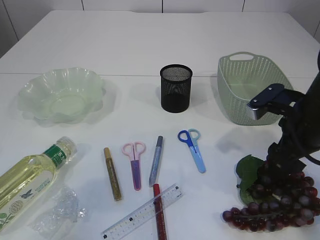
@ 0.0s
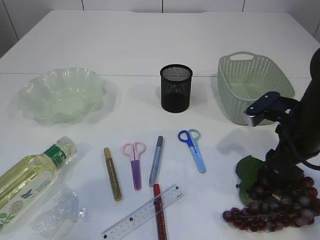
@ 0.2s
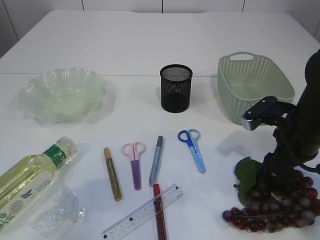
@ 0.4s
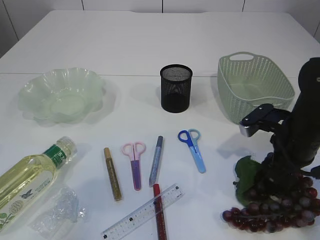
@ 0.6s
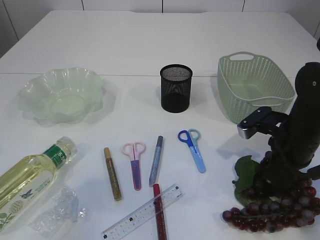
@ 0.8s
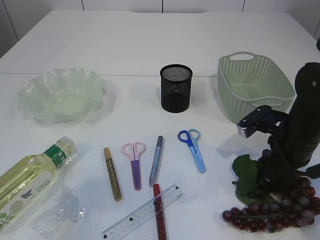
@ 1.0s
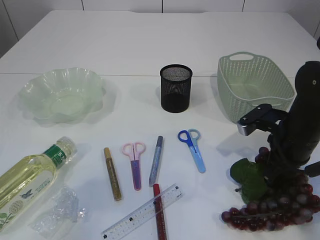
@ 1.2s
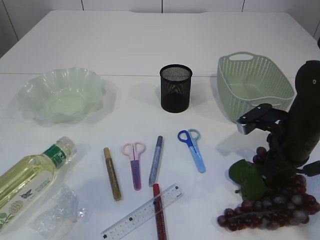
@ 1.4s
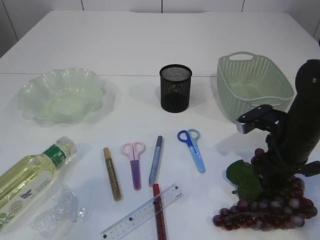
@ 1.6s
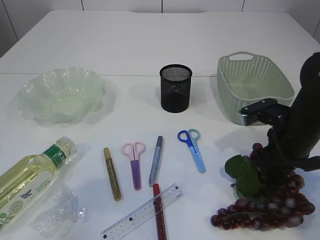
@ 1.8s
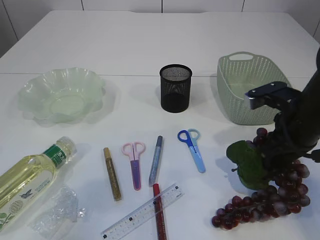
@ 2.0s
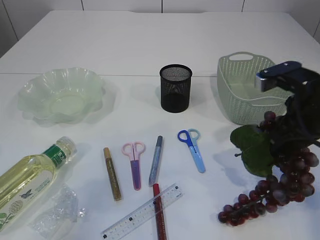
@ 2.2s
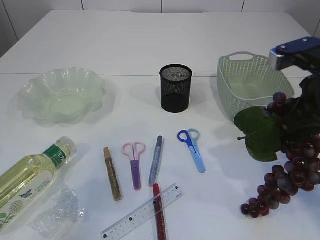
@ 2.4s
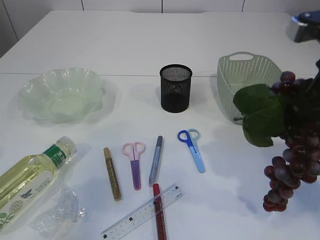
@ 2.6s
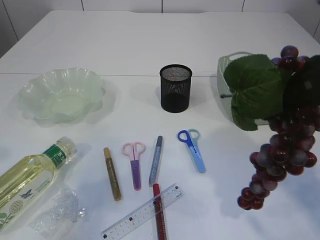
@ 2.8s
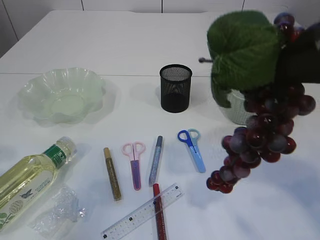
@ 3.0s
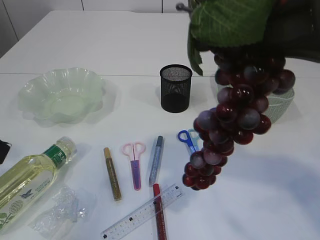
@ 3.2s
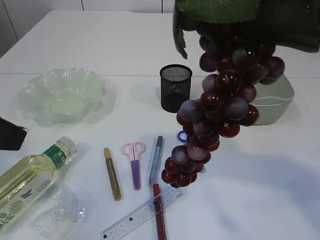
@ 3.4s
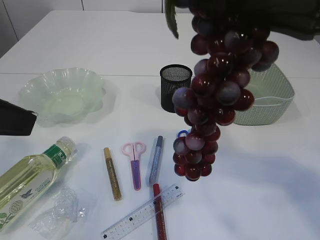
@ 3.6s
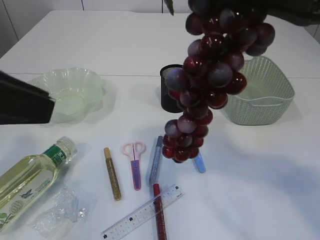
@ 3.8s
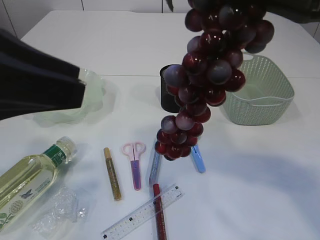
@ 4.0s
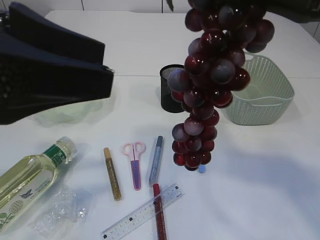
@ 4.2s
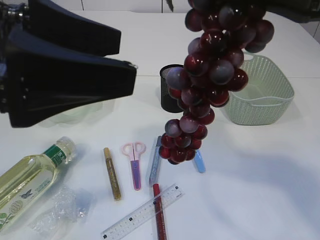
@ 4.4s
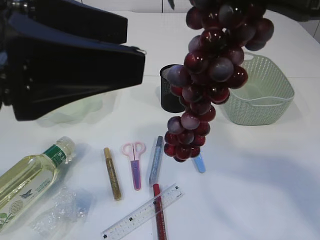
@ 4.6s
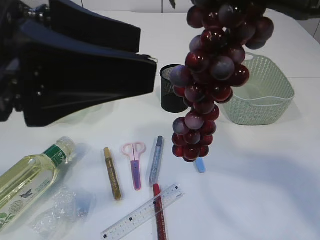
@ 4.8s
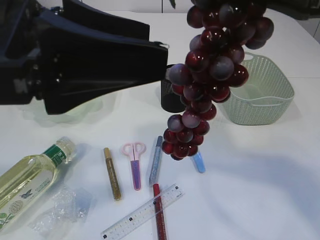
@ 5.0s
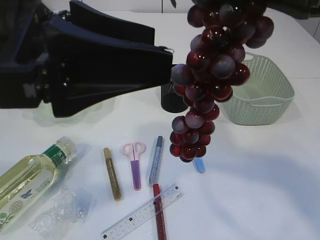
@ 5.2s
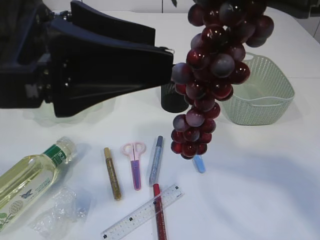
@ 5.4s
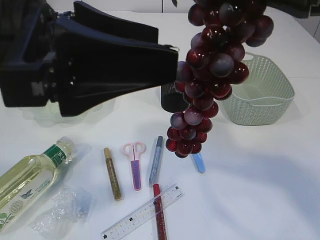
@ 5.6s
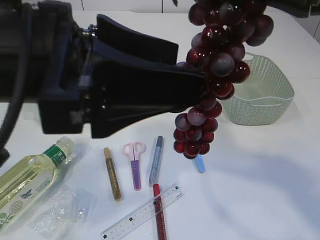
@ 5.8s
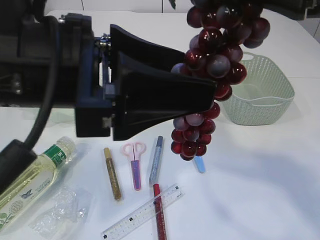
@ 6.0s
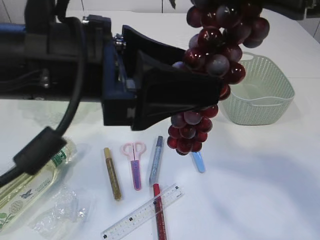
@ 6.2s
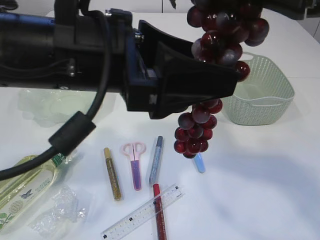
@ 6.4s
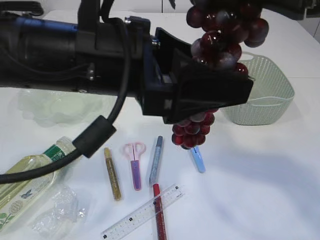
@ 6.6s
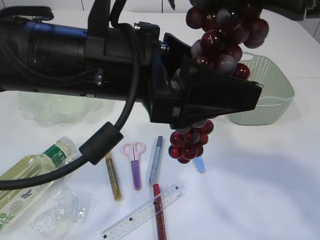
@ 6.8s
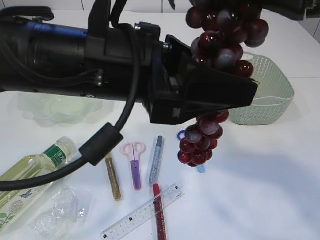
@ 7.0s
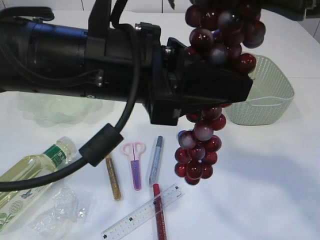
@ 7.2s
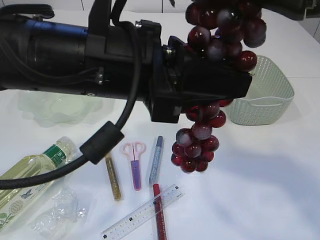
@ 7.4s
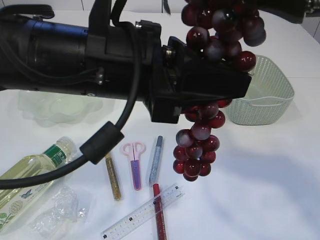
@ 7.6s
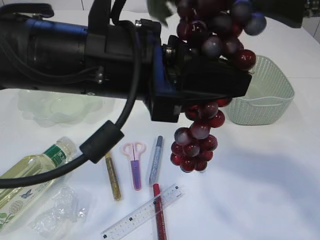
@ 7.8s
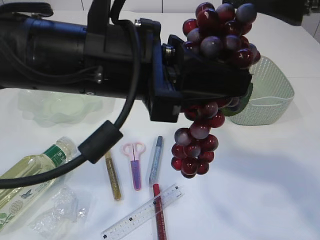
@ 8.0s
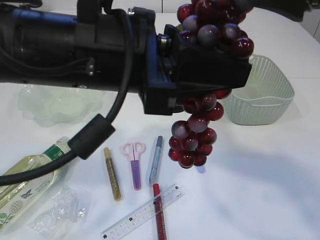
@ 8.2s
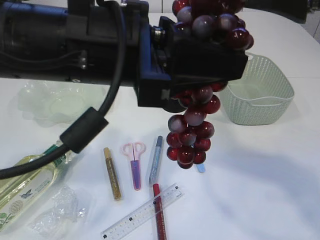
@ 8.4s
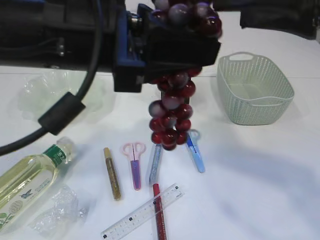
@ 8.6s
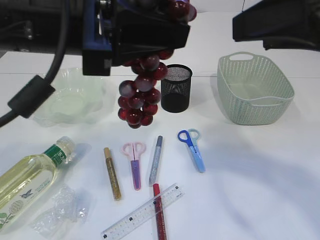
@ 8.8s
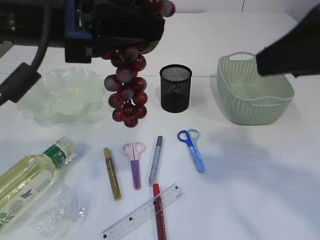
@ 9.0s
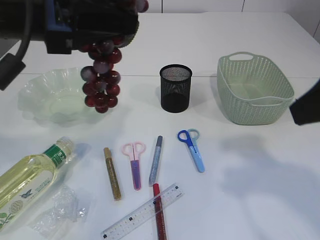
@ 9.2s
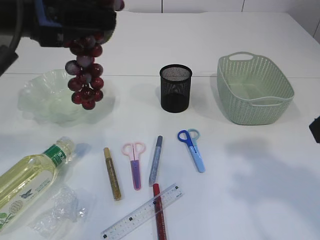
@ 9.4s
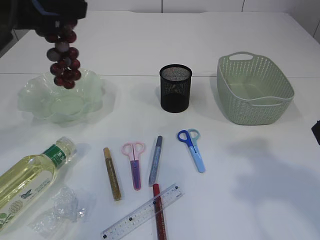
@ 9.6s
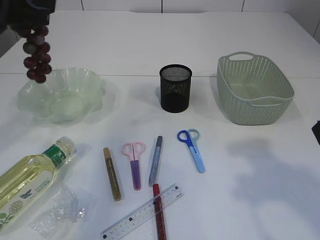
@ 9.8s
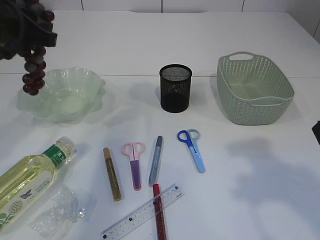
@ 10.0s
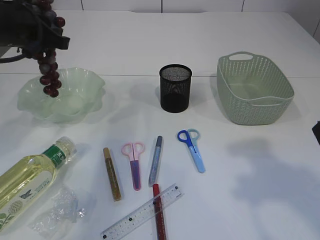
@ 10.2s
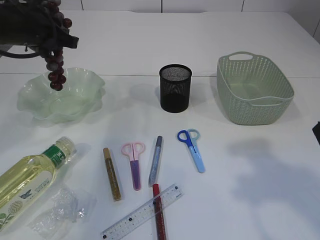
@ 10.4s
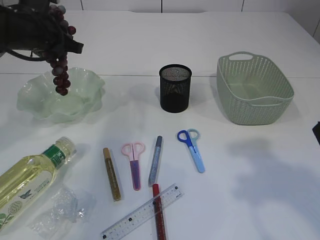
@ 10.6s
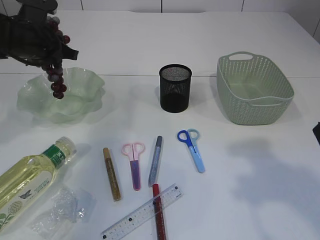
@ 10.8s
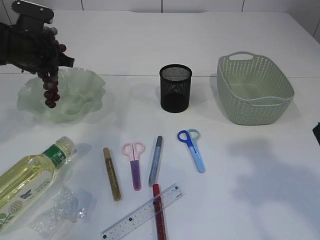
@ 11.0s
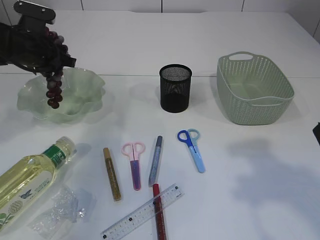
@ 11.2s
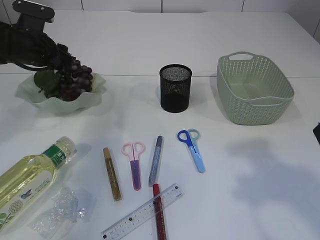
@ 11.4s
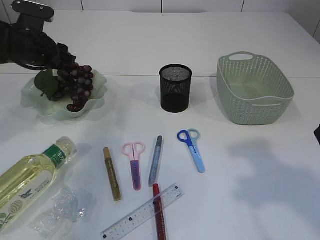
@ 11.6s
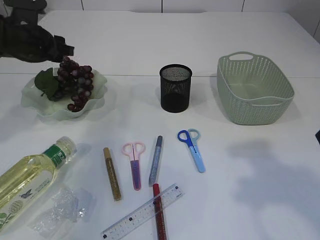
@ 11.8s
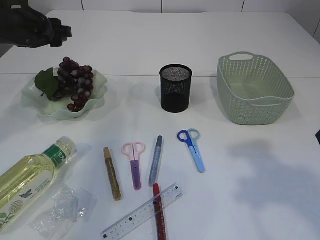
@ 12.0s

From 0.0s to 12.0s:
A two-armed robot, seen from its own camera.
Step, from 0.0s to 2.8s: Pick up the grapes.
Step, from 3.0s to 8.8s: Hand over the grapes.
Step, from 9.0s to 12.0s: Place the grapes in the plate.
From 0.0s to 1.6s: The right gripper closes up.
From 1.6s to 3.0s: The right gripper moves upward and backward, roughly 25 cm.
From 3.0s to 4.4s: The left gripper is displaced to the right and upward by about 15 cm, and opens. Meanwhile the right gripper moves some 5 cm.
From 4.4s to 6.0s: The left gripper goes approximately 5 cm to the right.
From 6.0s to 7.6s: The right gripper opens. Meanwhile the left gripper changes place by about 5 cm, and closes.
From 7.6s to 9.0s: The right gripper opens up. Meanwhile the left gripper travels to the left by about 5 cm.
From 9.0s to 10.4s: The left gripper shifts some 20 cm forward, to the left and downward.
From 10.4s to 12.0s: The left gripper opens up.

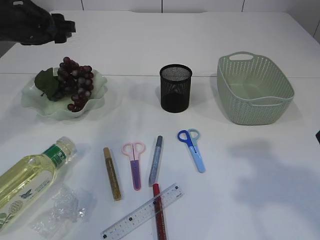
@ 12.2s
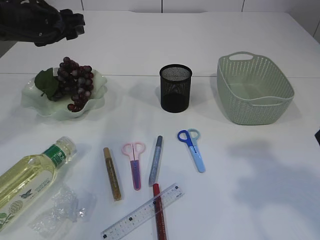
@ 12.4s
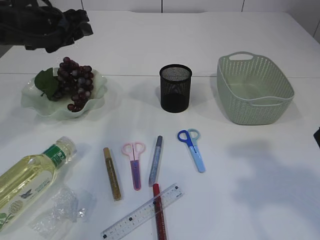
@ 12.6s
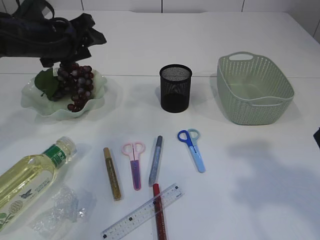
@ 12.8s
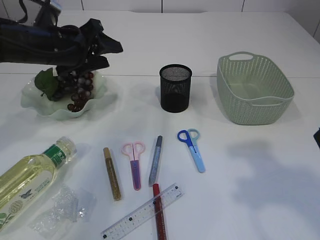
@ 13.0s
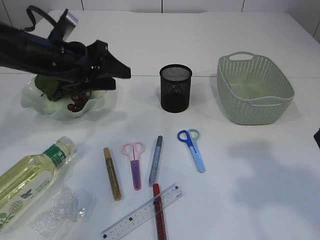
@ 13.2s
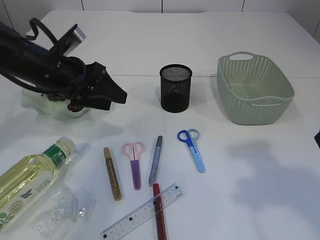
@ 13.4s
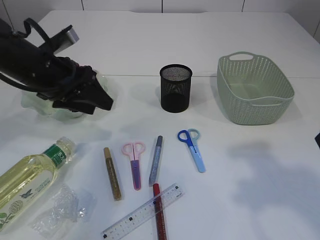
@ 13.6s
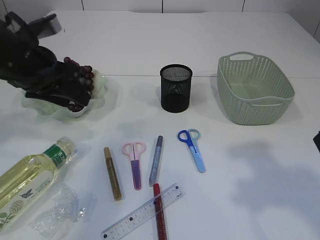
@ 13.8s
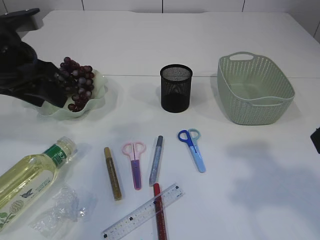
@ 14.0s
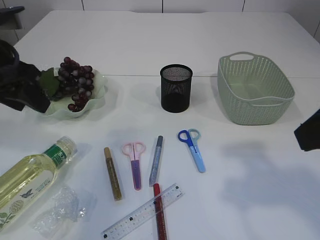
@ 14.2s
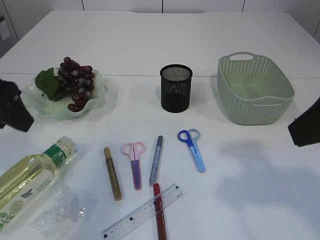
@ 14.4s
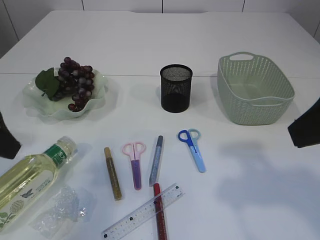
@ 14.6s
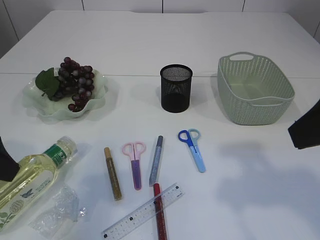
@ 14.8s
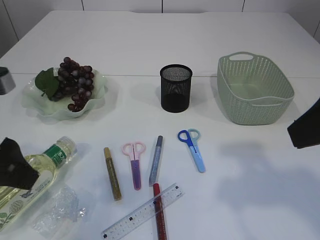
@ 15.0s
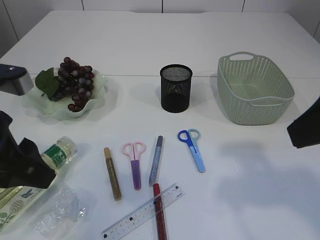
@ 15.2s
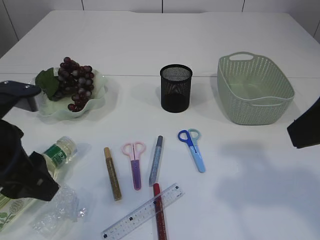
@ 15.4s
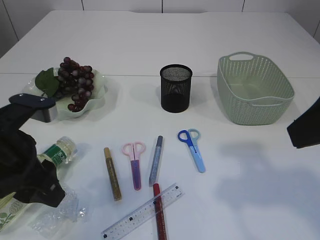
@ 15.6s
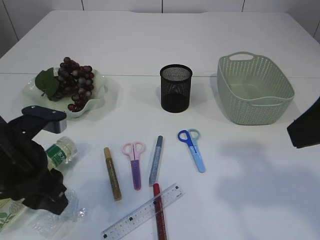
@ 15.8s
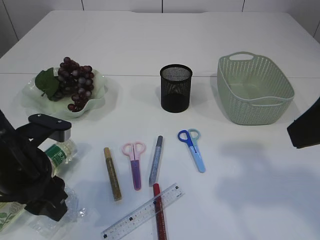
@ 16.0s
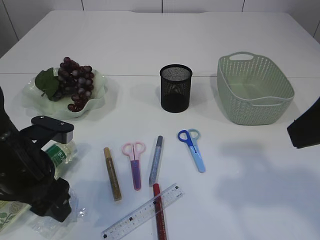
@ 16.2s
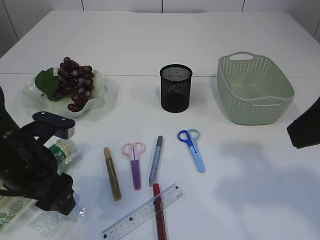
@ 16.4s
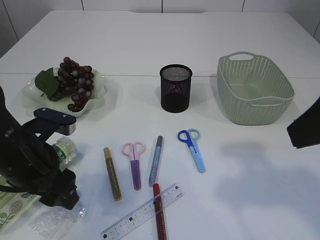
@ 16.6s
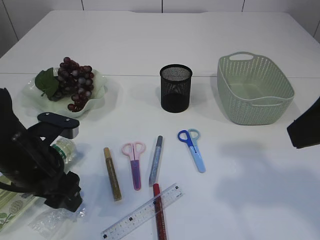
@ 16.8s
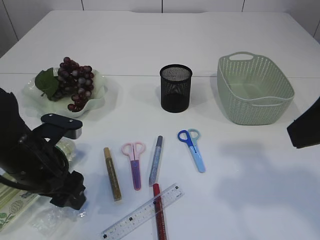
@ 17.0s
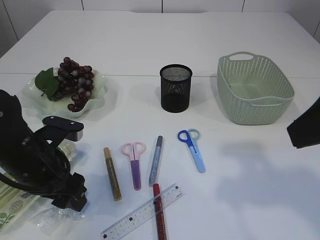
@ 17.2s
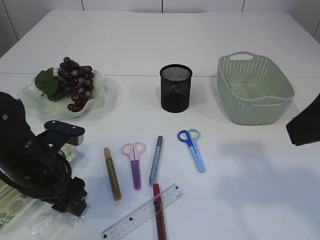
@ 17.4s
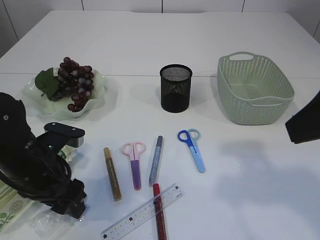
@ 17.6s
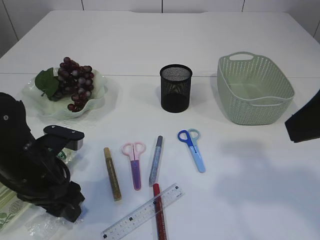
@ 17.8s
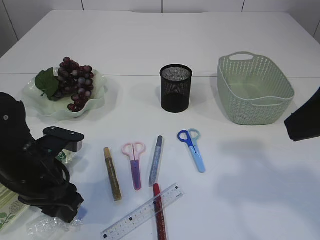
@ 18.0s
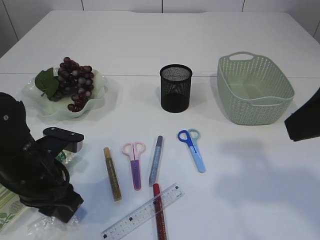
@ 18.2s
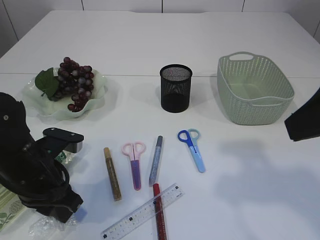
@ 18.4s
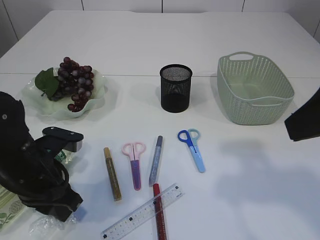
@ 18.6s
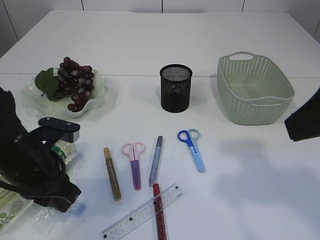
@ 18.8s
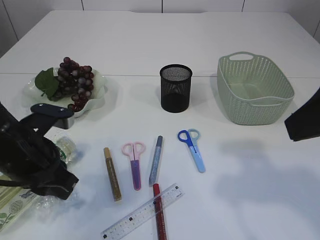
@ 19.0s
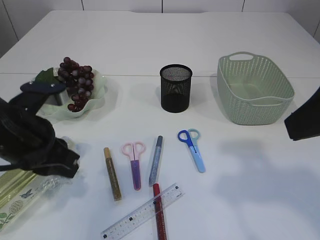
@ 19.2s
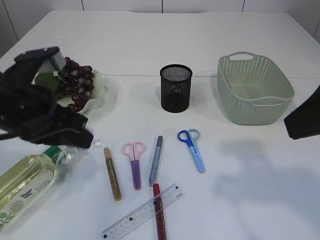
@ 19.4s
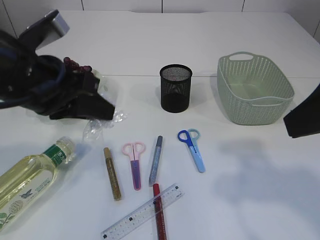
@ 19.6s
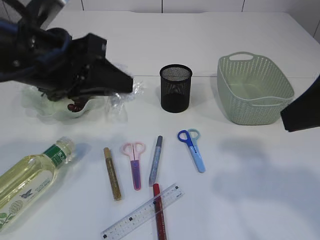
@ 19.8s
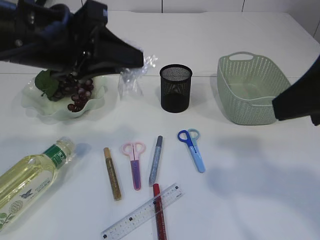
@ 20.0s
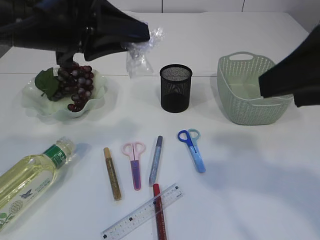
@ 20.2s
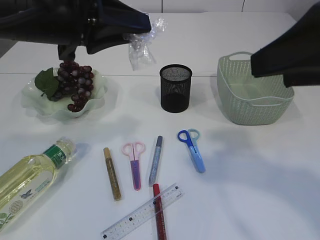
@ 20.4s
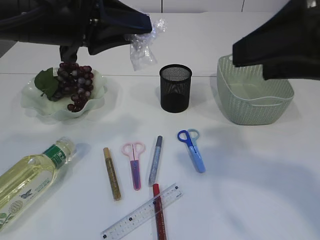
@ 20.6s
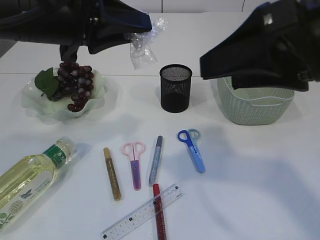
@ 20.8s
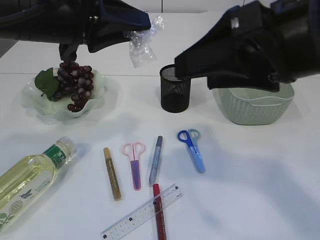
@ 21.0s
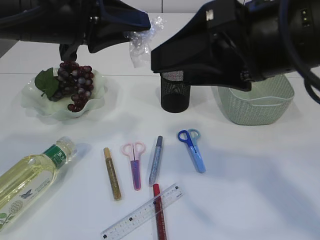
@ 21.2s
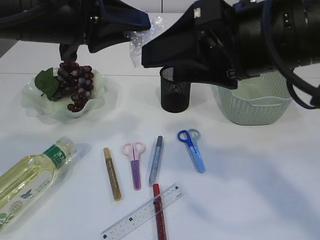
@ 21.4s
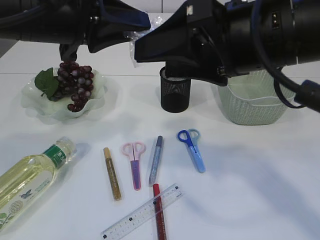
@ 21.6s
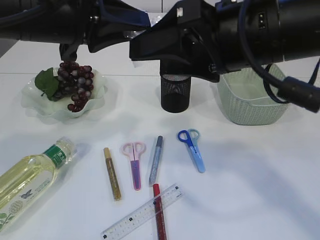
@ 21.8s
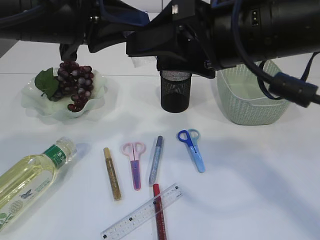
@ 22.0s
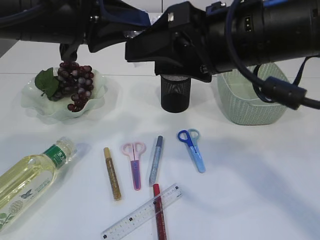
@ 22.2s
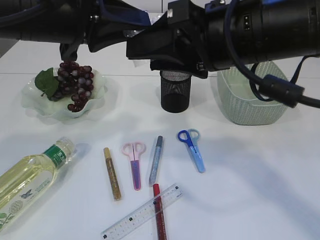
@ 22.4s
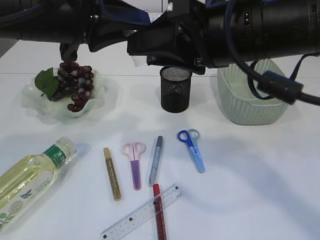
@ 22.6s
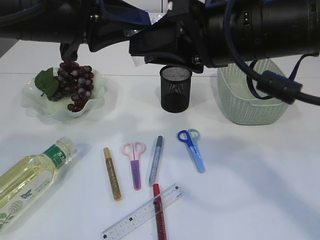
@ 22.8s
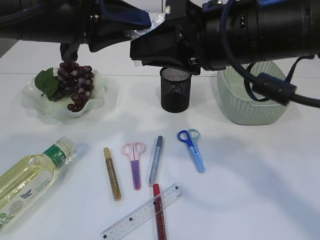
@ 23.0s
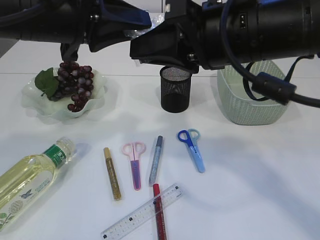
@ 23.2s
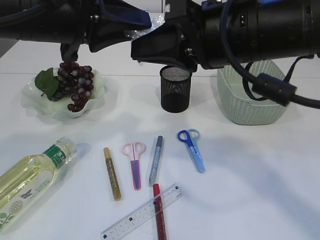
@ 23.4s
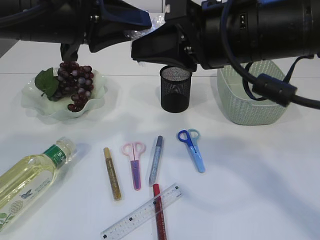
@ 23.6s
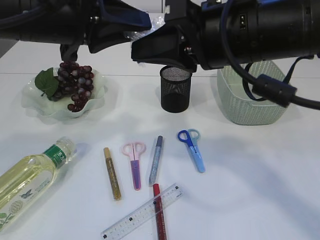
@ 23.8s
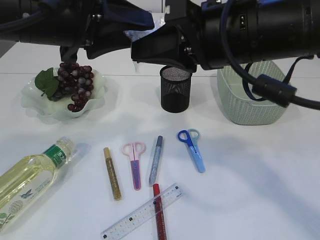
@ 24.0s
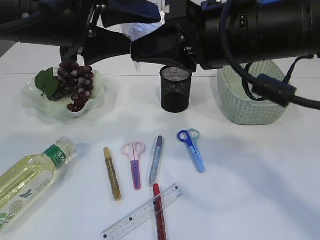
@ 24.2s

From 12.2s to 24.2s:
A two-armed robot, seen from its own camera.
Step, from 12.2s to 19.4s: Pick up the plastic.
From 12.2s to 13.8s: The left gripper shifts roughly 10 cm backward.
From 13.8s to 15.2s: The left gripper travels backward by roughly 15 cm.
From 15.2s to 16.6s: The left gripper moves downward, some 10 cm.
From 16.6s to 18.2s: The left gripper closes its fingers.
From 18.2s to 19.8s: The left gripper moves upward, about 15 cm.
From 19.8s to 21.2s: The right gripper heads to the left, covering some 10 cm.
From 21.2s to 22.6s: The right gripper shifts by roughly 5 cm.
From 22.6s to 24.2s: The right gripper closes. Meanwhile the left gripper opens its fingers.
